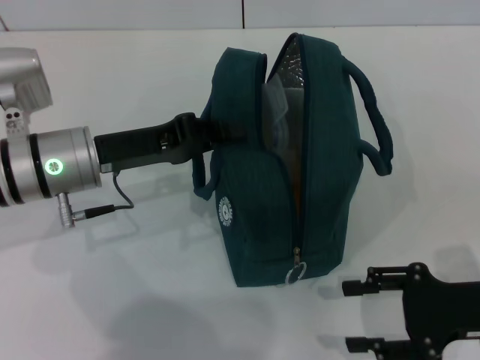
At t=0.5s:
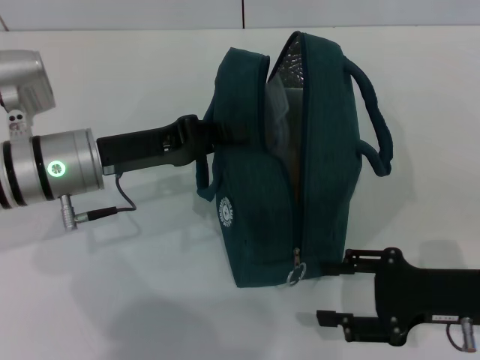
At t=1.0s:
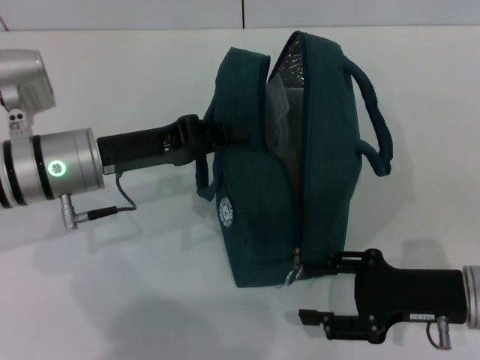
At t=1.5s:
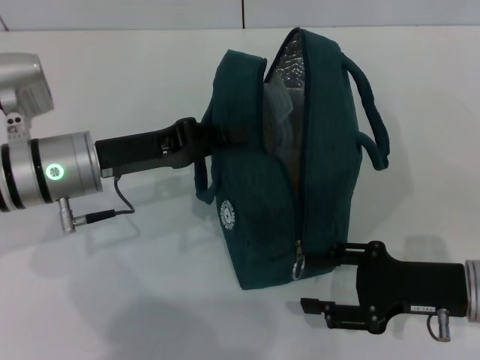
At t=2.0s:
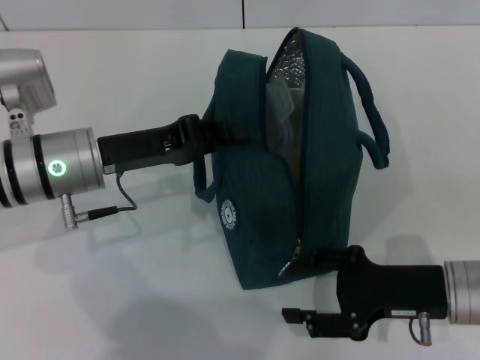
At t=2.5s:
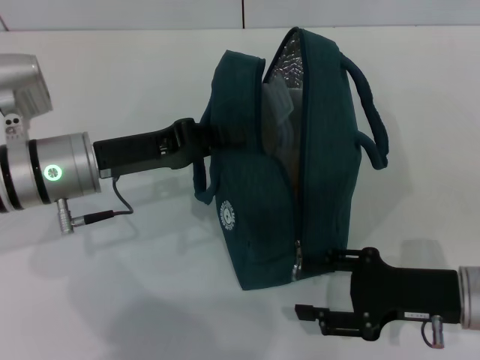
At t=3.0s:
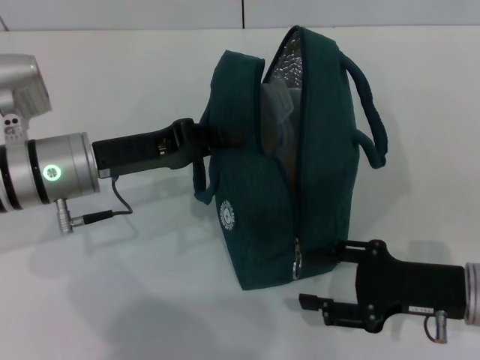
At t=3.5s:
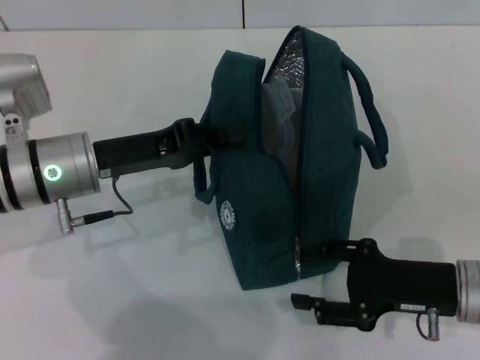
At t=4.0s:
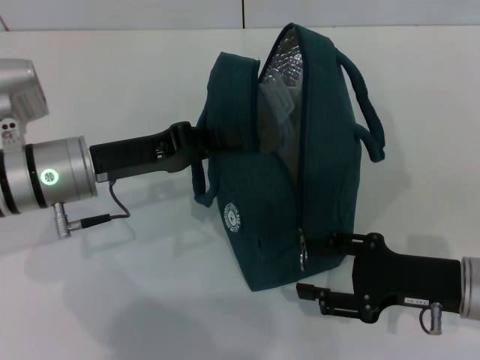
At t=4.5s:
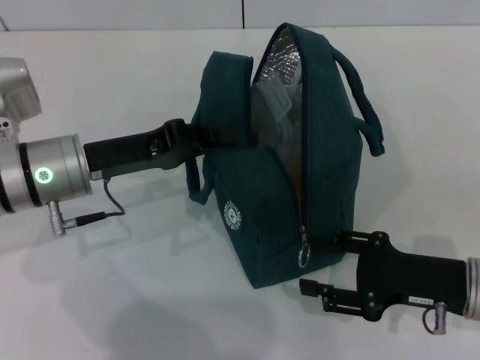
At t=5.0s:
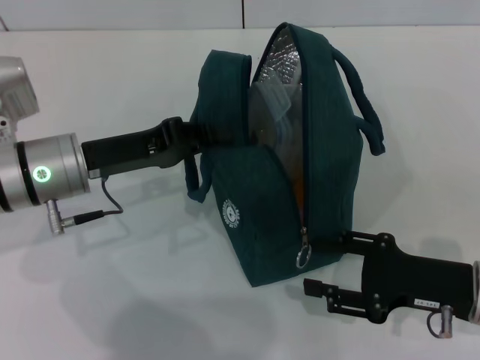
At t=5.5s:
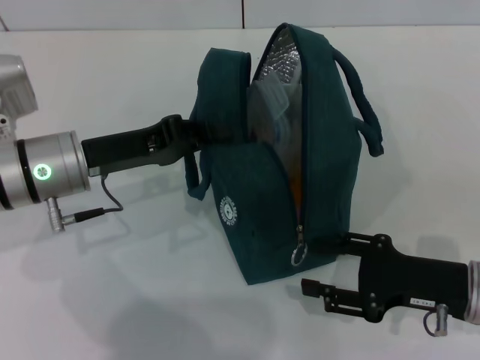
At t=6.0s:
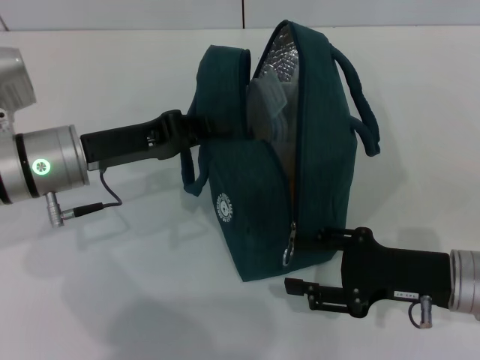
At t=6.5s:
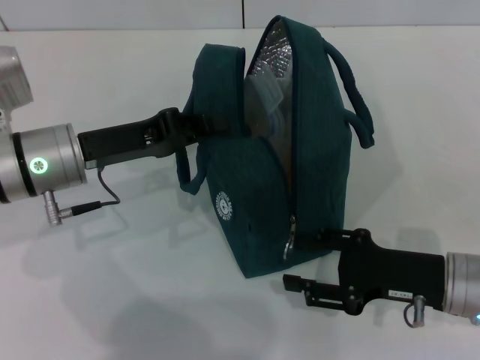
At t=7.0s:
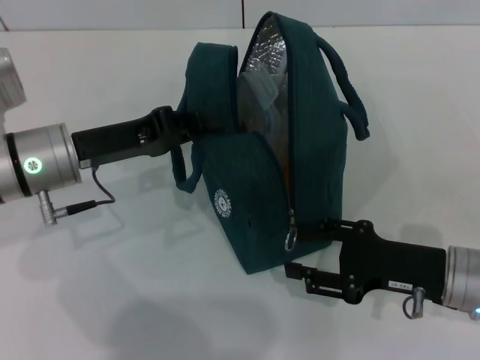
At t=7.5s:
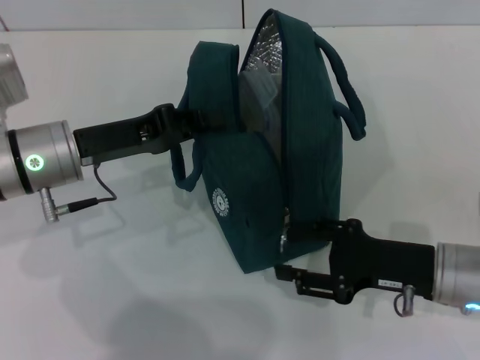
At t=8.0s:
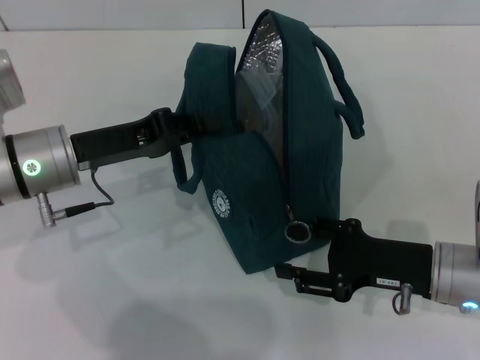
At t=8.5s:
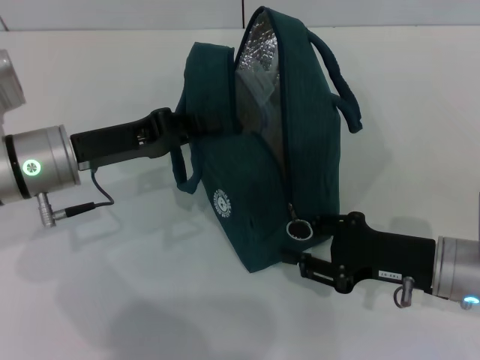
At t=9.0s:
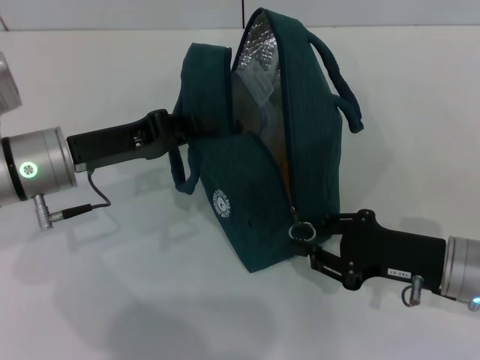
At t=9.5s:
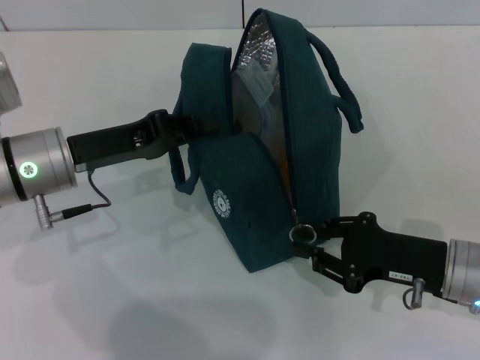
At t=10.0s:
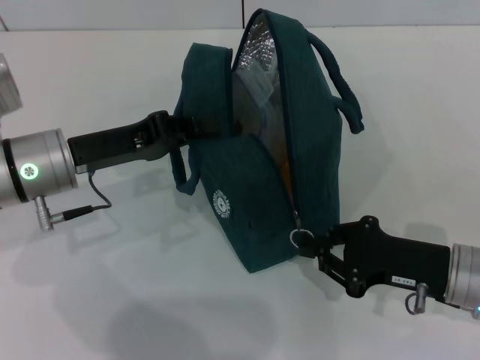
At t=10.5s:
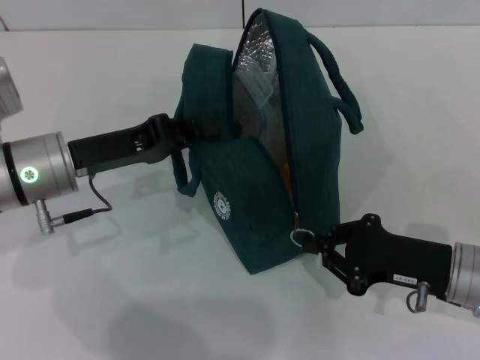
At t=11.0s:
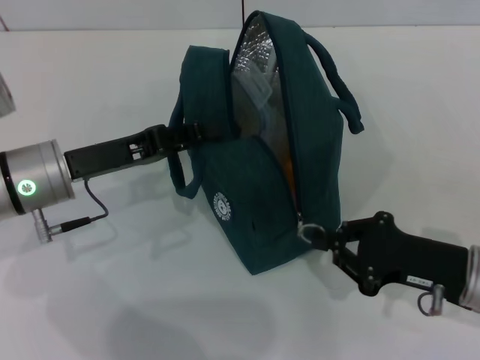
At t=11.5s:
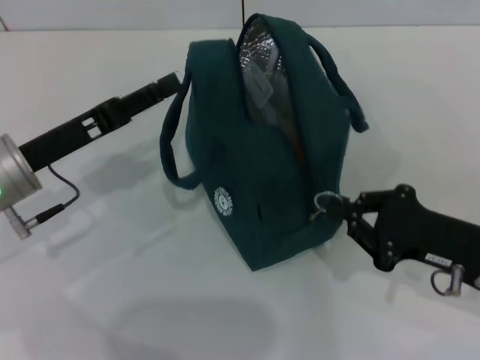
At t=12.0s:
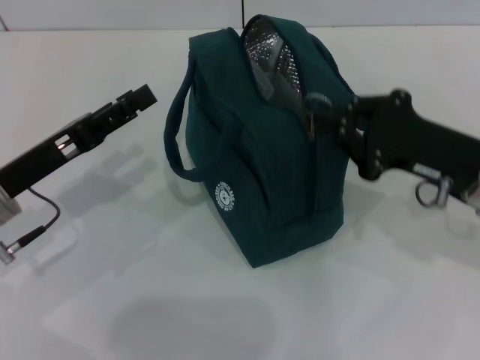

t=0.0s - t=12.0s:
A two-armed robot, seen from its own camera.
Step, t=0.0s - t=11.0s: Hold the lunch bag with your left hand.
t=0.0s - t=2.0s: The right gripper is displaced to the left by about 5 cm.
t=2.0s - t=8.0s: The grippers move only a little.
t=8.0s - t=10.0s: The right gripper closes up.
t=10.0s - t=12.0s: The left gripper changes place by some 5 cm, and opens its fingers. The right gripper travels upward by about 5 cm.

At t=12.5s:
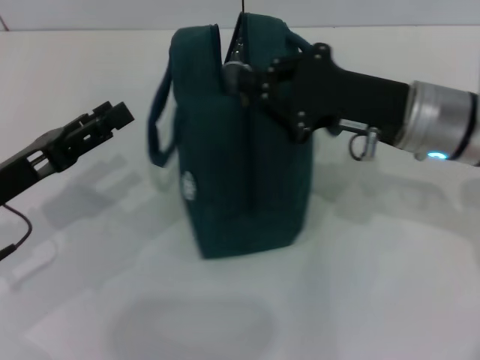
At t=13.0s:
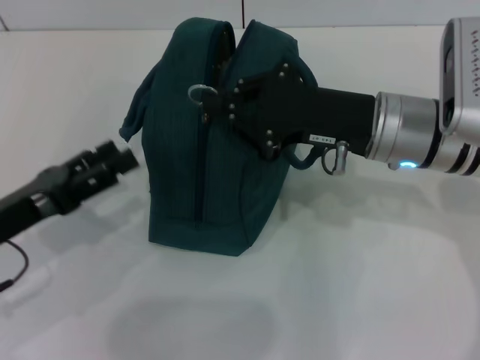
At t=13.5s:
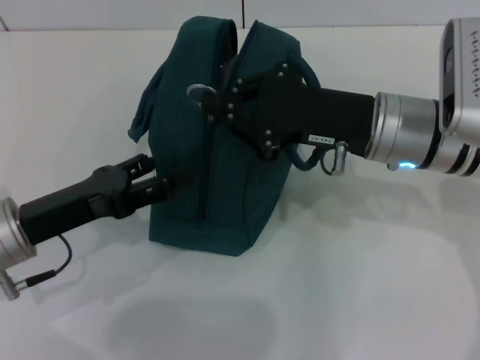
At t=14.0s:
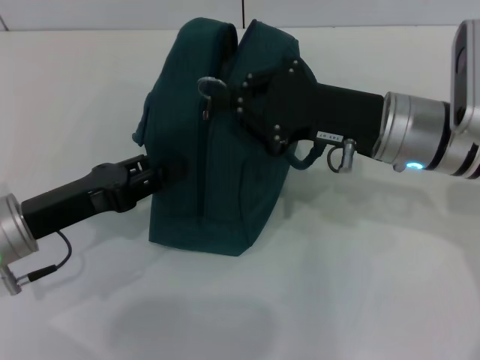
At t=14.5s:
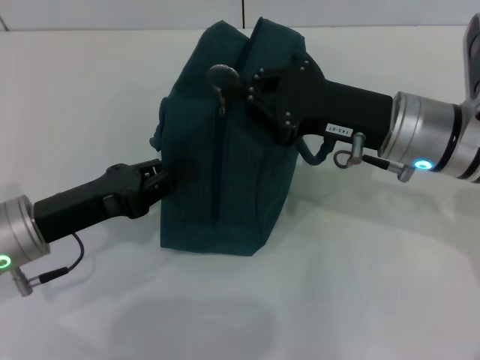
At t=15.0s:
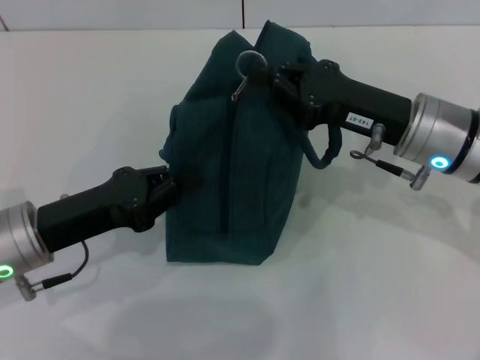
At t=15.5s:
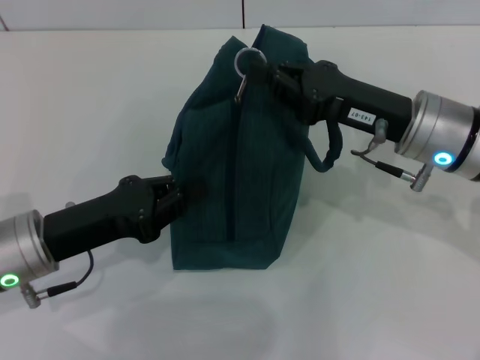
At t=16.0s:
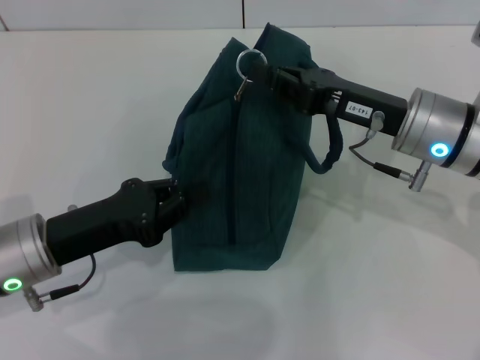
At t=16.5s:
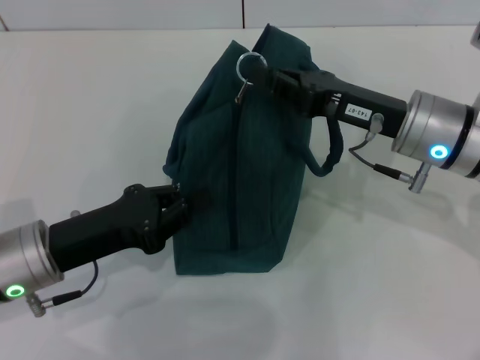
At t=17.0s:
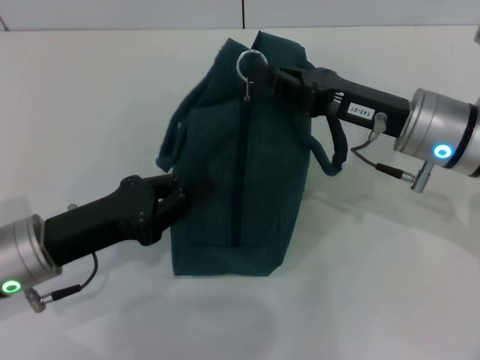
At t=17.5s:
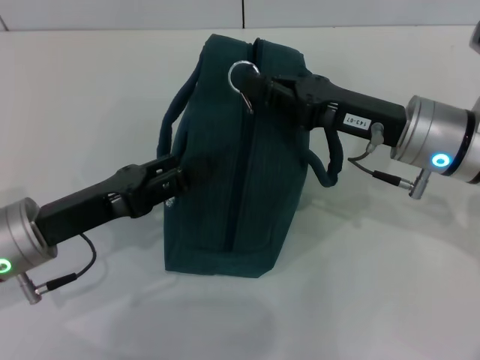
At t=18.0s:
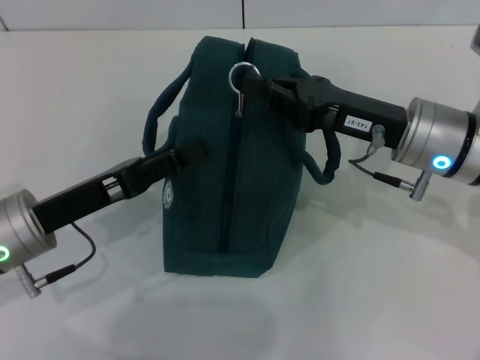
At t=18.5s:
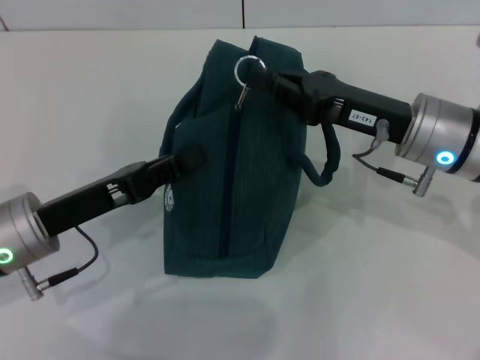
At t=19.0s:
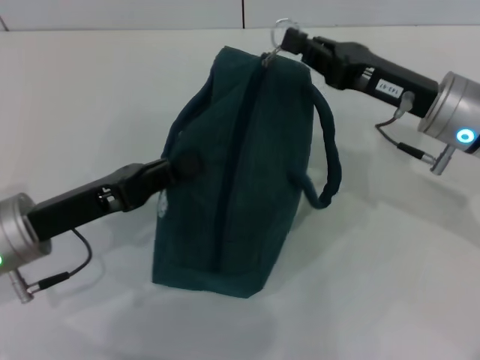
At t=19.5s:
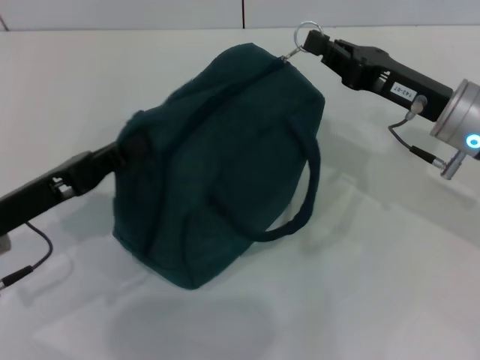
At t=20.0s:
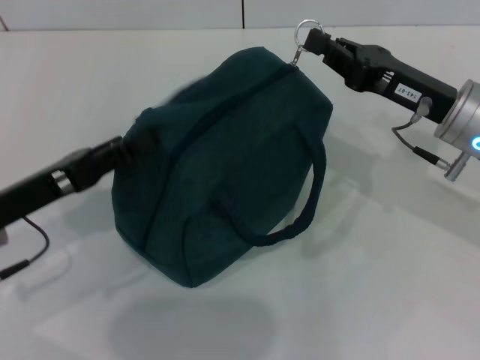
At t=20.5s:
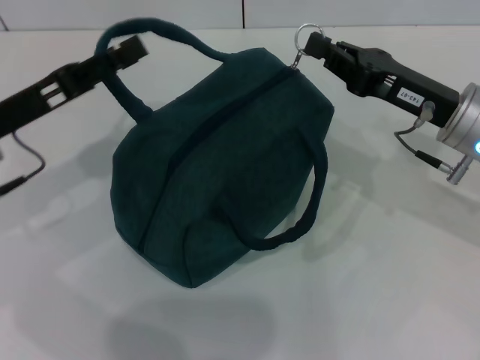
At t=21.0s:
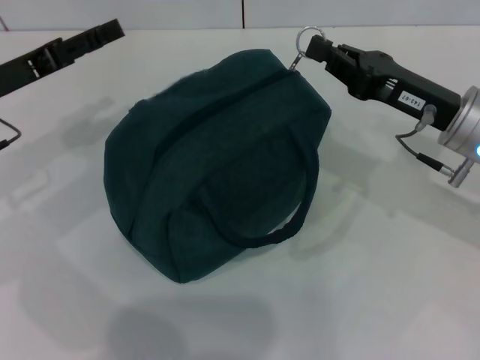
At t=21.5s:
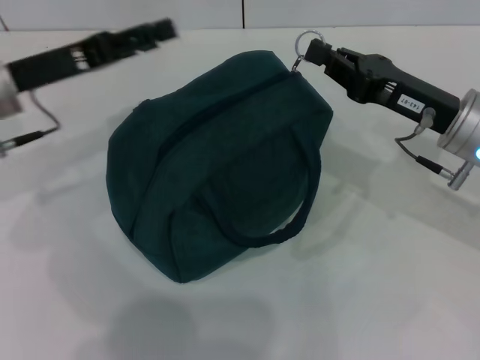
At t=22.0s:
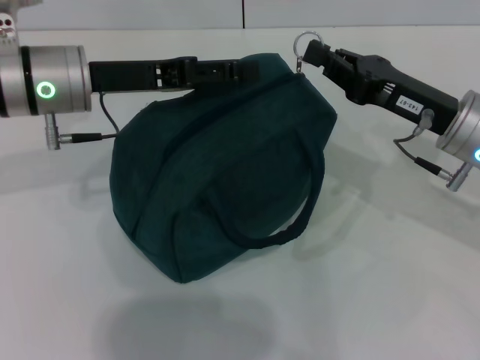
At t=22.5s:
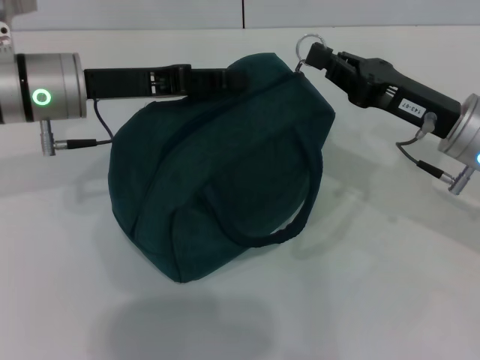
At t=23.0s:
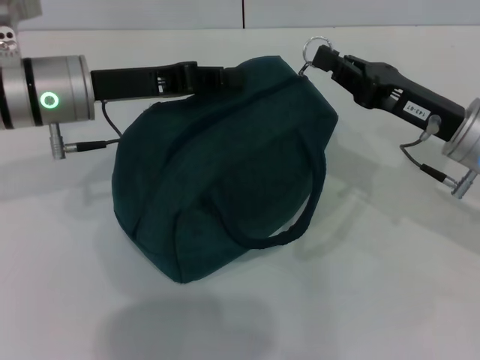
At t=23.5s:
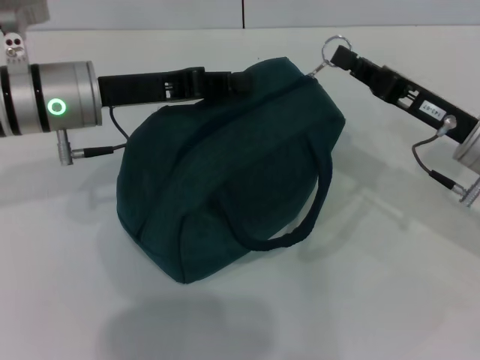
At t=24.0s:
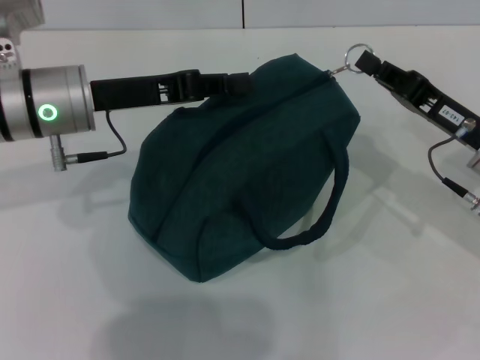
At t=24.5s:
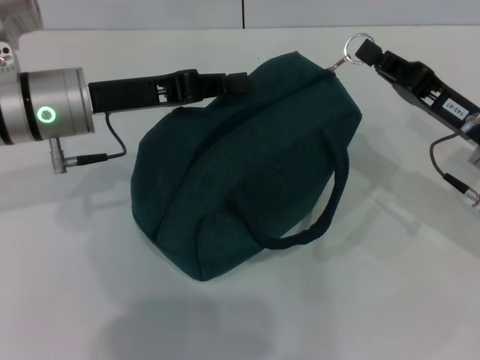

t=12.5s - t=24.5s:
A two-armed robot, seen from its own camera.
t=12.5s - t=14.5s: The left gripper closes up.
t=16.5s - t=18.5s: The left gripper opens.
t=18.5s - t=20.5s: The left gripper goes approximately 5 cm forward, and closes, then reopens.
t=20.5s - t=22.5s: The left gripper heads to the right and forward, covering approximately 10 cm.
t=22.5s - t=24.5s: The left gripper closes.

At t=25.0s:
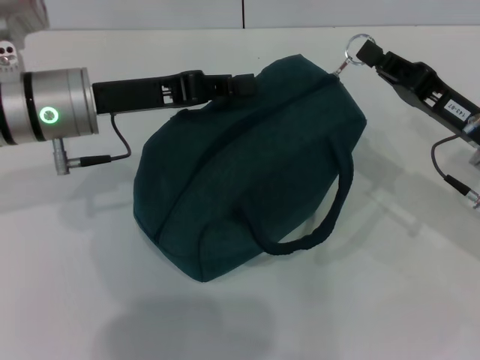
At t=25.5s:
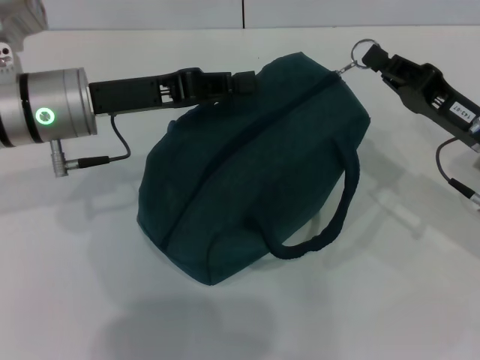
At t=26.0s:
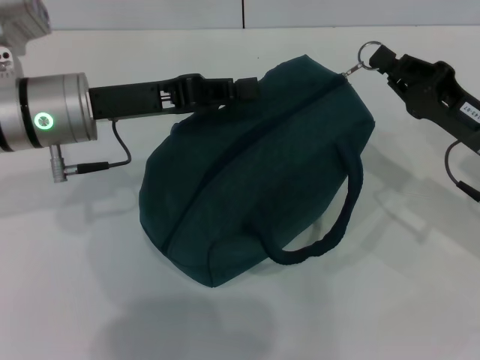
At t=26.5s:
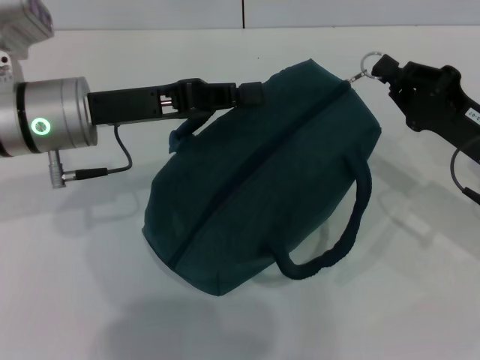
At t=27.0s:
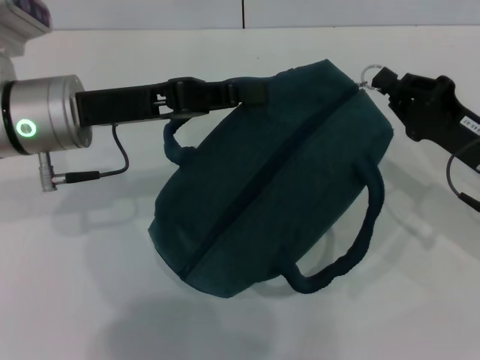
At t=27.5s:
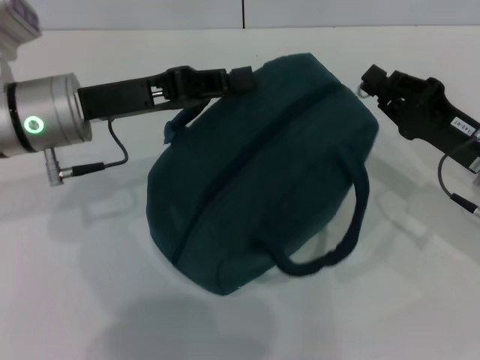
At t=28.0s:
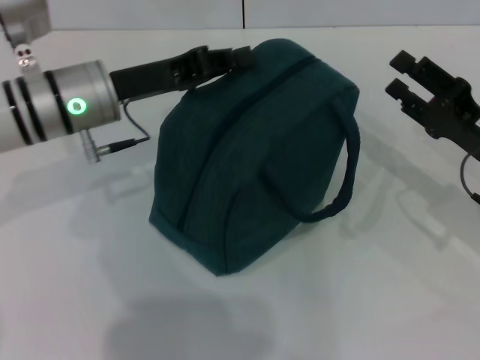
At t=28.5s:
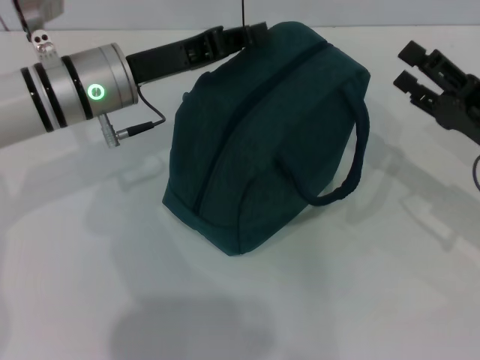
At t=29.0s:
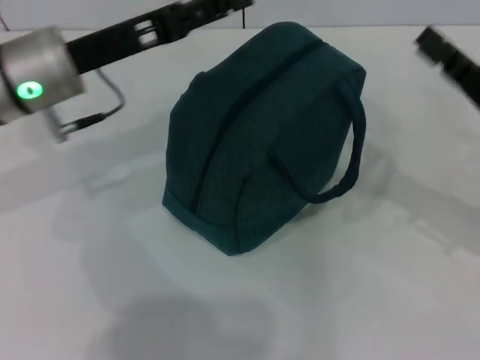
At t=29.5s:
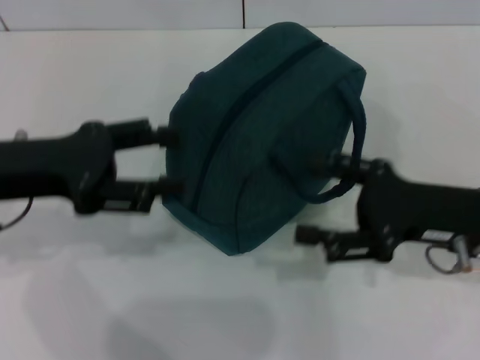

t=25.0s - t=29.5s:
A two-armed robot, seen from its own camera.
Step, t=25.0s - t=27.5s: Zip up the lunch bag with your right hand.
Step, t=28.0s - t=28.5s: Hold the lunch bag with your left hand.
t=27.0s - t=29.5s: The right gripper moves some 5 cm, and opens up. Meanwhile the left gripper shifts roughly 10 cm to the left and backward, and opens up.
